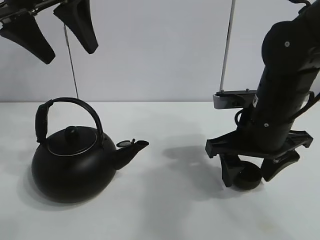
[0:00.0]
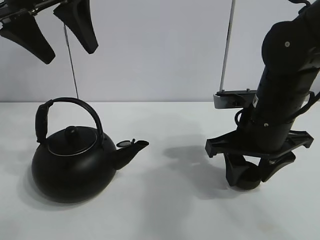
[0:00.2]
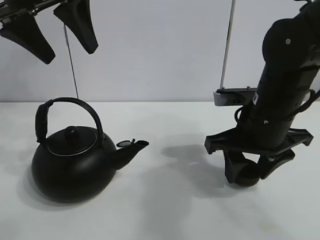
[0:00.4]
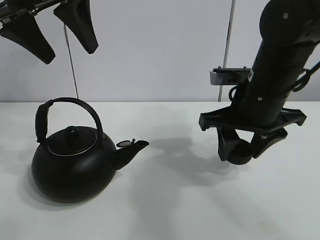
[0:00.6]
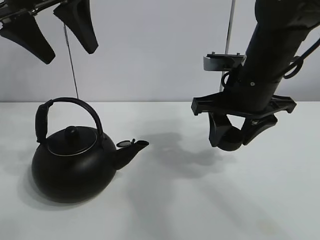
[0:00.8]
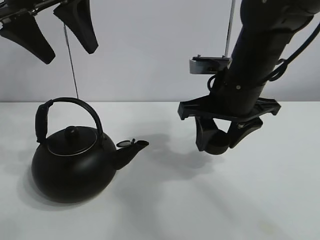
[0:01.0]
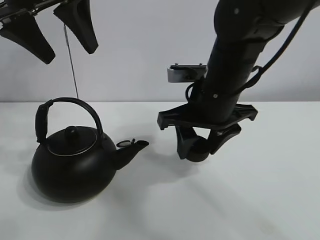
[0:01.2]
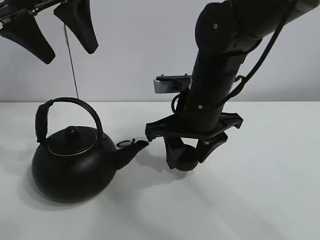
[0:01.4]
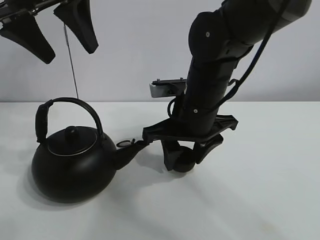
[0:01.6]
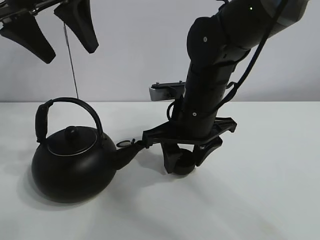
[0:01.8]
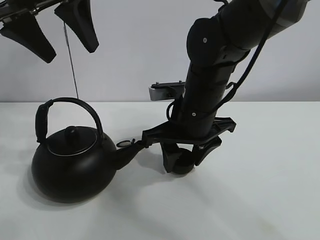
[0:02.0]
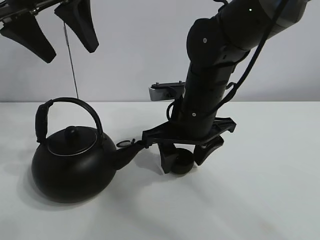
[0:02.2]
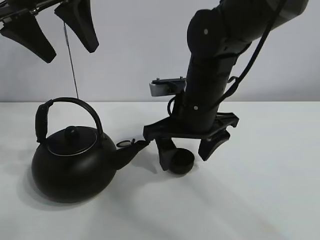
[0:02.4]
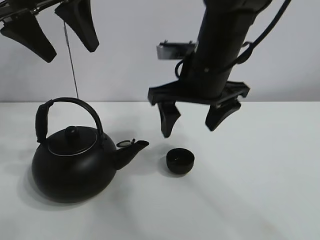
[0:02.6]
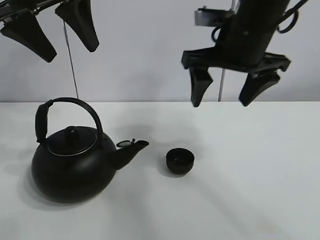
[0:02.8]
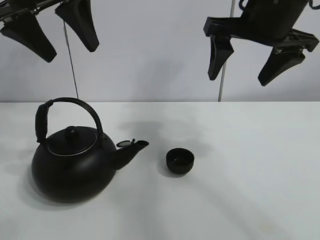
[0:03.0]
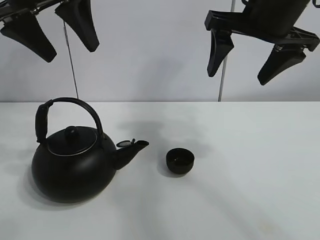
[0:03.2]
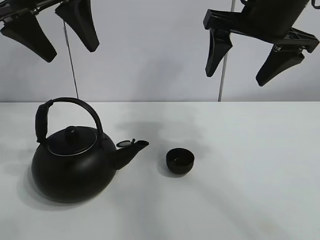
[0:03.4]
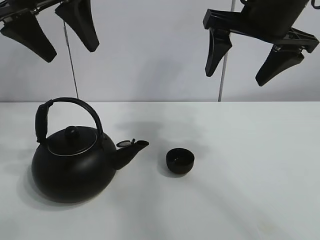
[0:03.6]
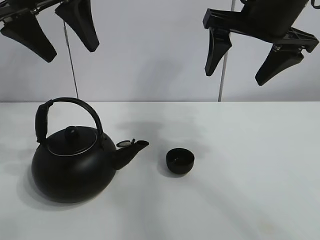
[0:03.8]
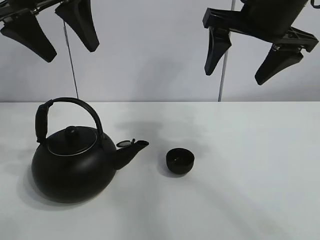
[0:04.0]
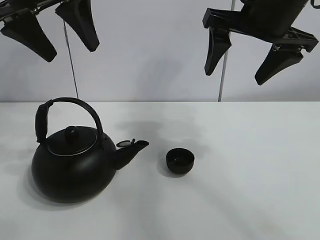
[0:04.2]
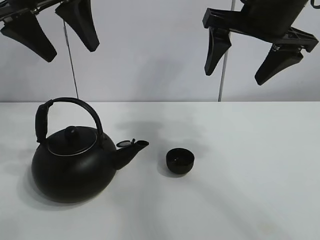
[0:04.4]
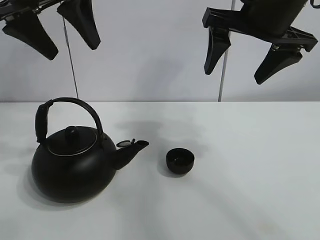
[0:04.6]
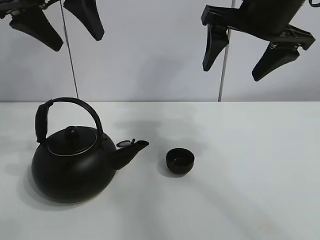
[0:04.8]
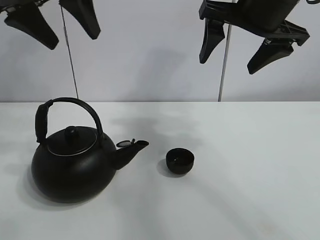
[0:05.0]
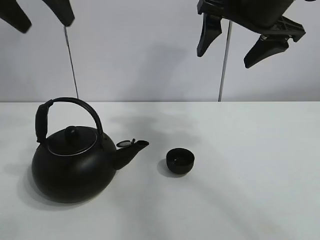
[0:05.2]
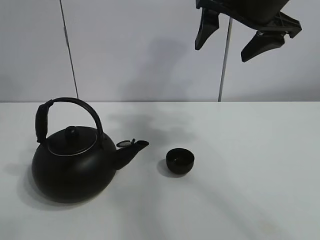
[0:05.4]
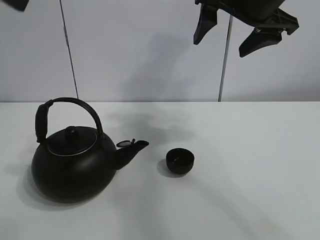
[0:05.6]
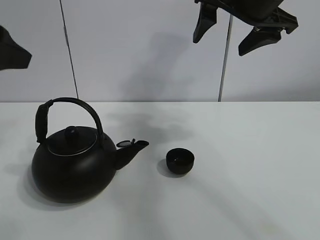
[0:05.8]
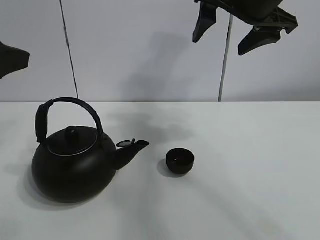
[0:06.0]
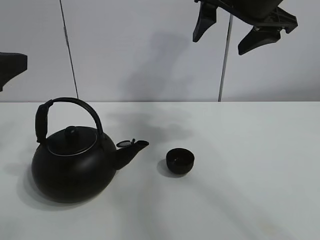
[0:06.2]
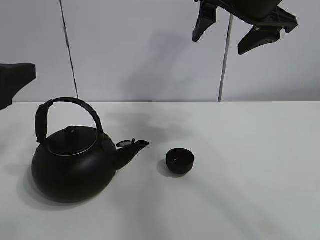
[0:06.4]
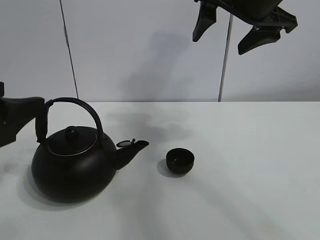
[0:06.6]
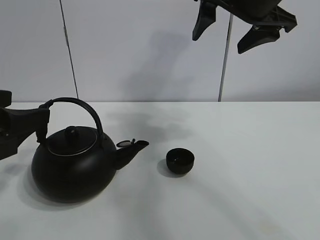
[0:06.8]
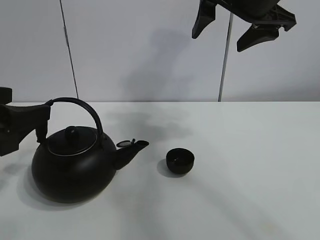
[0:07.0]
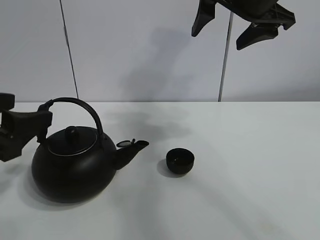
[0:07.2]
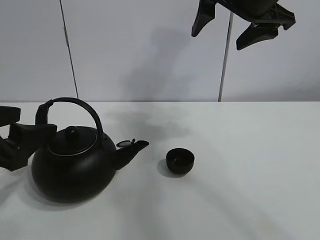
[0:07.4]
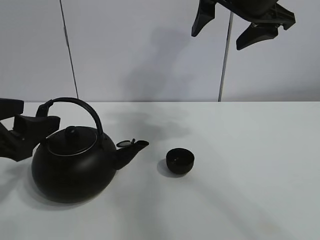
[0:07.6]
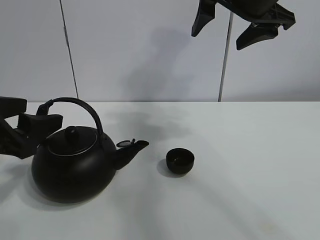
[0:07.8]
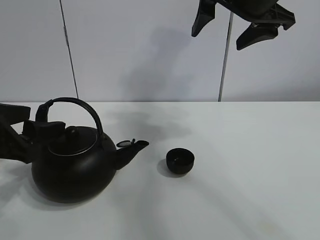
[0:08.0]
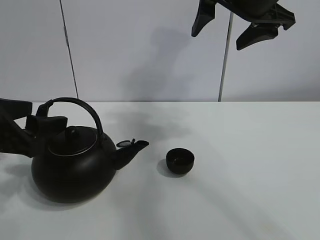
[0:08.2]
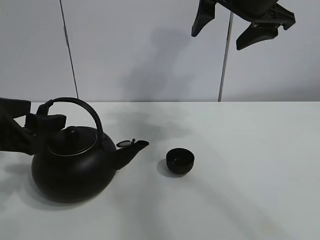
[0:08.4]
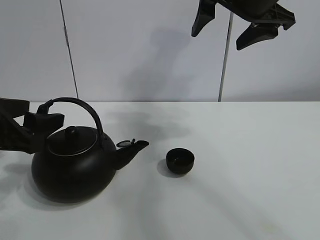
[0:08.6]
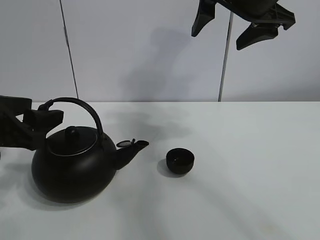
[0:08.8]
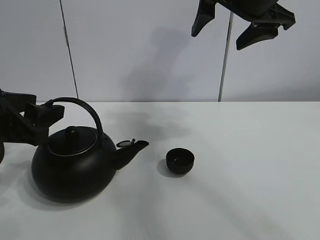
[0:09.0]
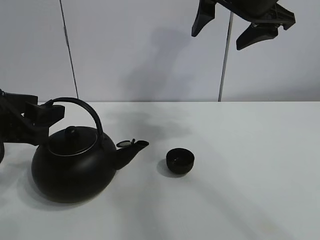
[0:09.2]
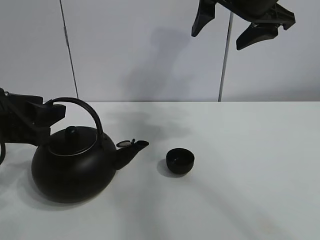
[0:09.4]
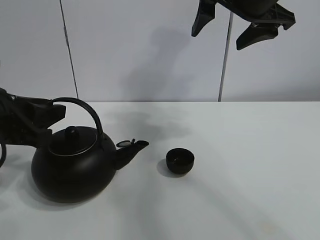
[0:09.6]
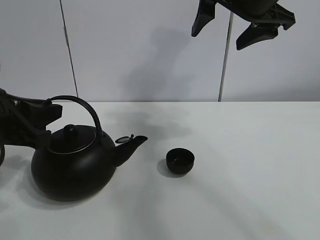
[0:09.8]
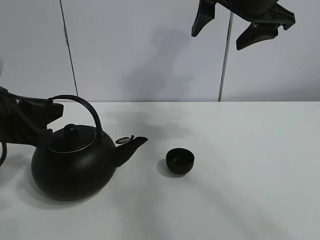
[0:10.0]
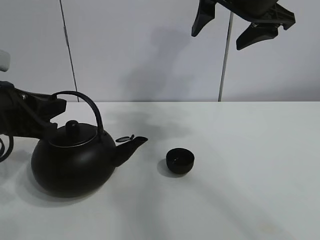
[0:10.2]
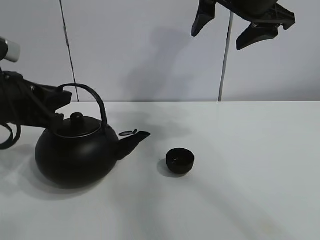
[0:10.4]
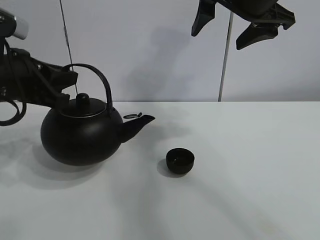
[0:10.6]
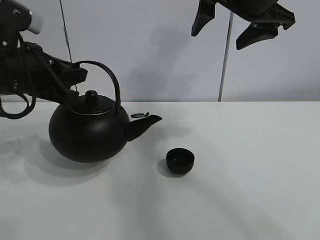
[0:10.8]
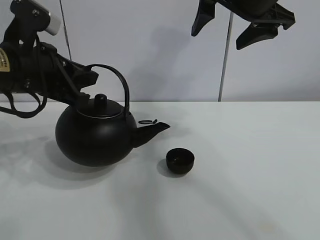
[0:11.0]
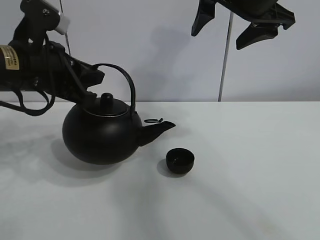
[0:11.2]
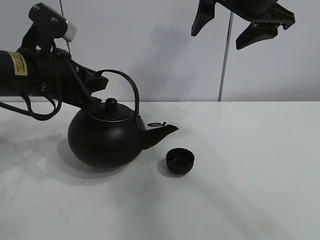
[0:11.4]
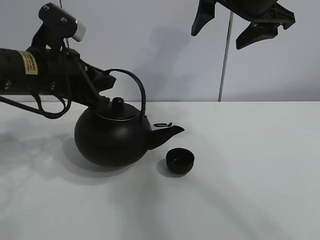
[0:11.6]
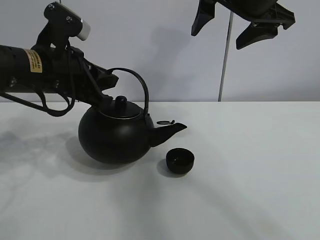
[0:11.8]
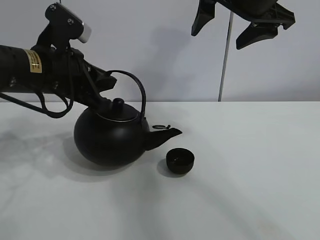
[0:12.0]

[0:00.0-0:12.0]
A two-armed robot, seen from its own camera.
Task of the whole recording: pour tea into the teacup.
Step, 0:00.4 to 0:02.2: Place the teacup in the center of view with the right gripper.
Step, 0:02.4 to 0:10.2: Pick up the teapot with the left gripper.
0:00.0 to 0:01.6: The right gripper shifts about 10 cm to the left, and closes up.
0:01.6 to 0:03.0: The right gripper moves upward and to the right, some 15 cm, and opens its fingers.
0:03.0 to 0:04.4: Both grippers stay about where they are.
0:04.4 to 0:06.0: The left gripper travels backward, to the left and downward by roughly 15 cm.
0:06.0 to 0:07.6: The left gripper heads downward, covering approximately 10 cm.
0:07.6 to 0:09.0: The grippers move only a little.
0:09.0 to 0:10.4: The left gripper closes.
0:10.4 to 0:12.0: The left gripper heads to the right and forward, covering about 10 cm.

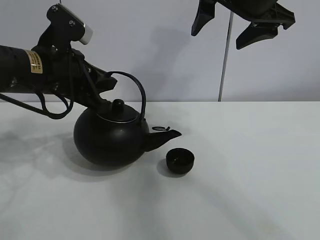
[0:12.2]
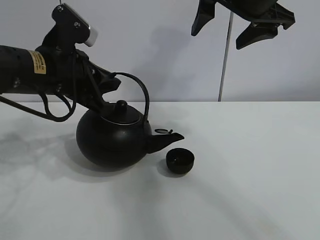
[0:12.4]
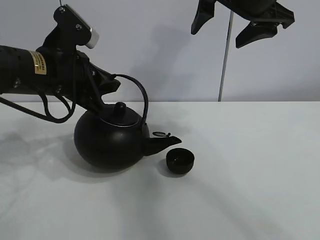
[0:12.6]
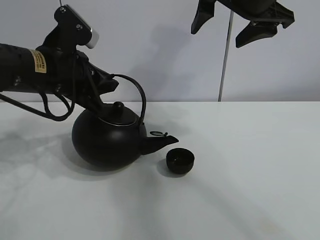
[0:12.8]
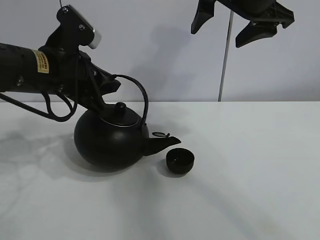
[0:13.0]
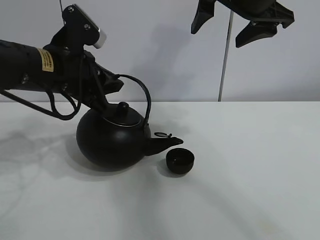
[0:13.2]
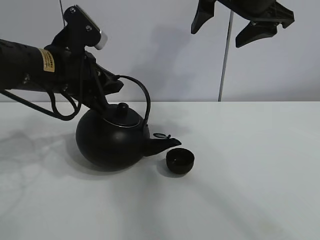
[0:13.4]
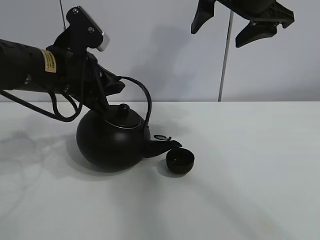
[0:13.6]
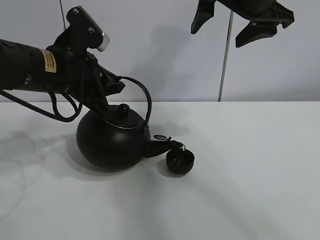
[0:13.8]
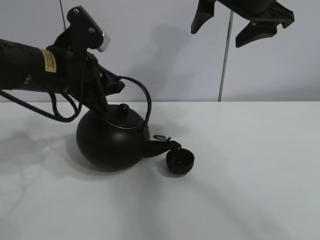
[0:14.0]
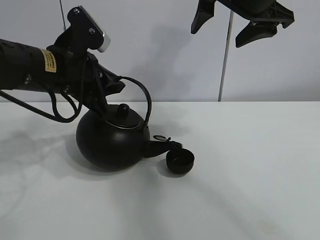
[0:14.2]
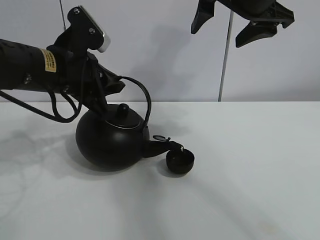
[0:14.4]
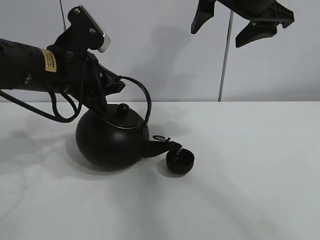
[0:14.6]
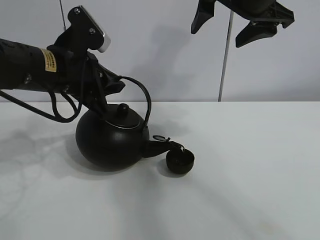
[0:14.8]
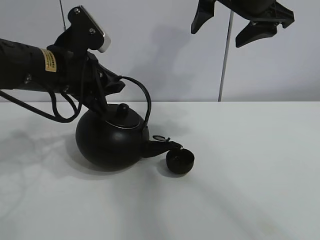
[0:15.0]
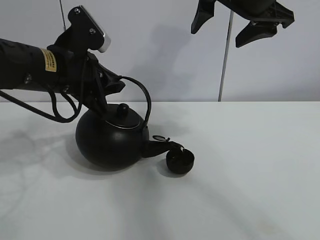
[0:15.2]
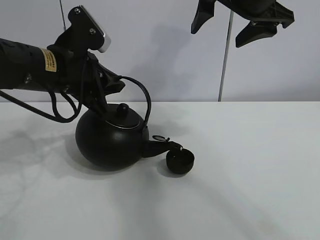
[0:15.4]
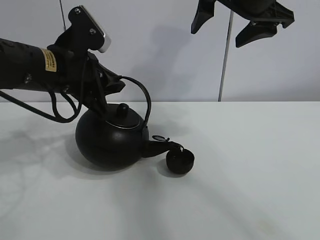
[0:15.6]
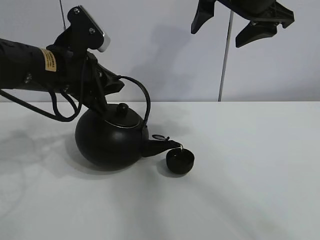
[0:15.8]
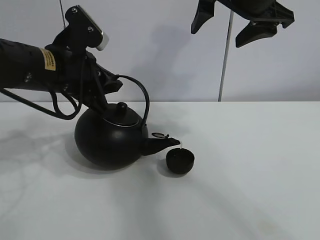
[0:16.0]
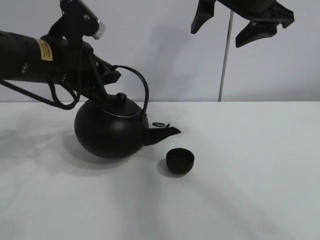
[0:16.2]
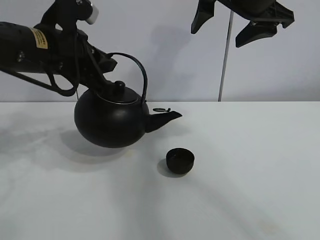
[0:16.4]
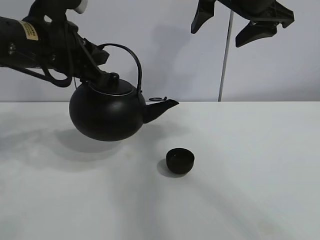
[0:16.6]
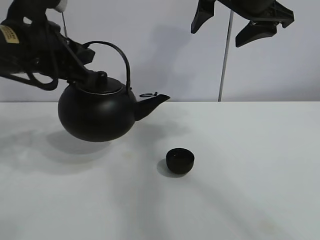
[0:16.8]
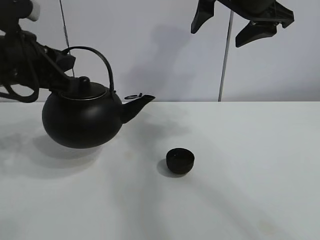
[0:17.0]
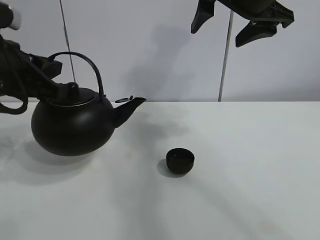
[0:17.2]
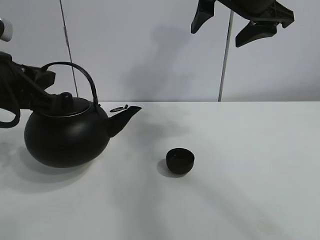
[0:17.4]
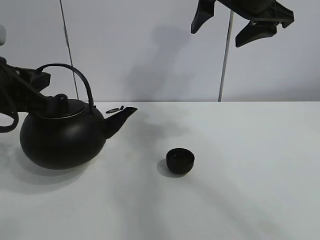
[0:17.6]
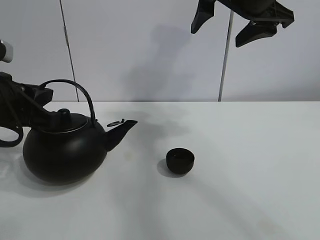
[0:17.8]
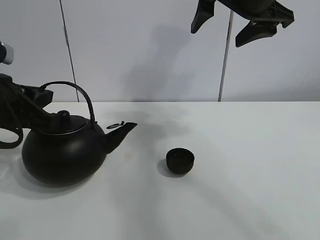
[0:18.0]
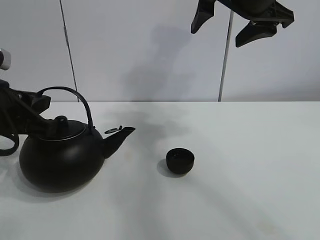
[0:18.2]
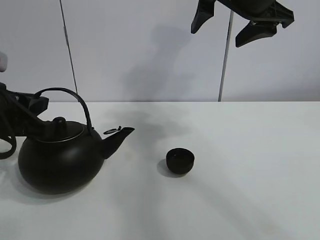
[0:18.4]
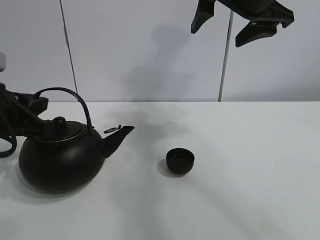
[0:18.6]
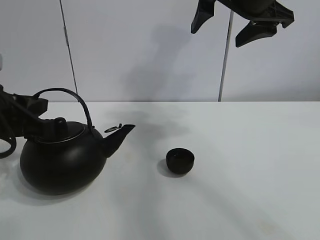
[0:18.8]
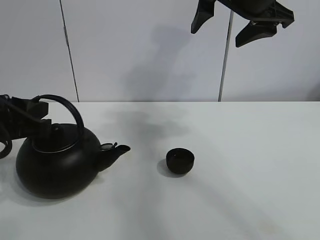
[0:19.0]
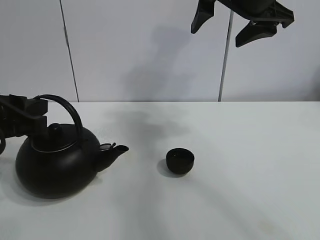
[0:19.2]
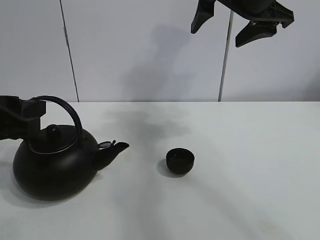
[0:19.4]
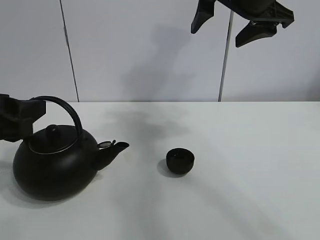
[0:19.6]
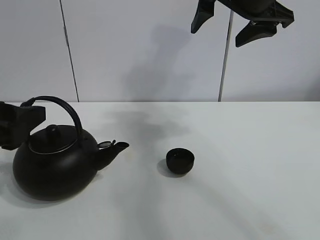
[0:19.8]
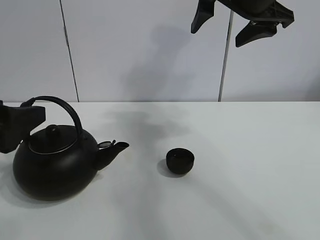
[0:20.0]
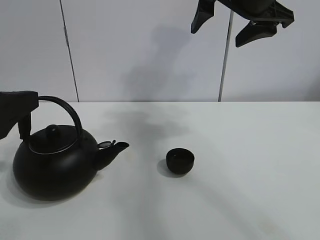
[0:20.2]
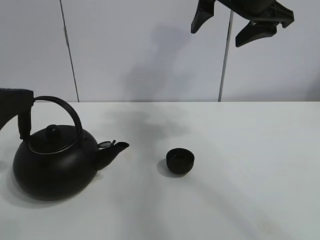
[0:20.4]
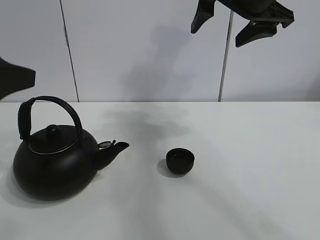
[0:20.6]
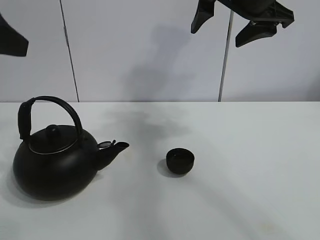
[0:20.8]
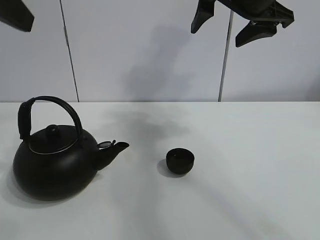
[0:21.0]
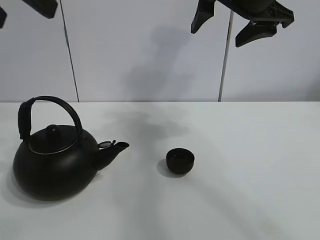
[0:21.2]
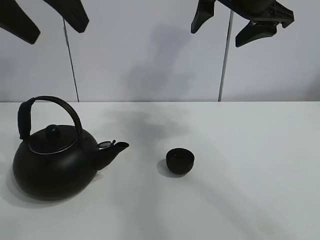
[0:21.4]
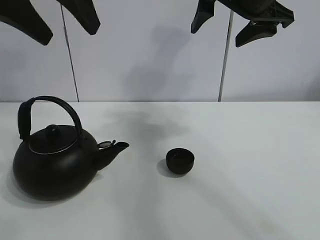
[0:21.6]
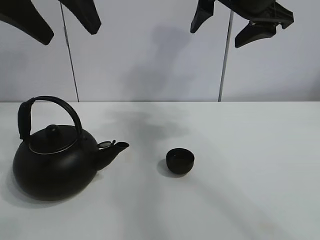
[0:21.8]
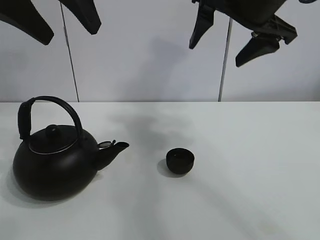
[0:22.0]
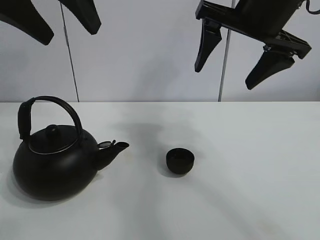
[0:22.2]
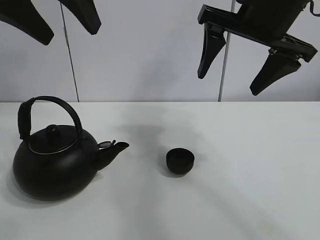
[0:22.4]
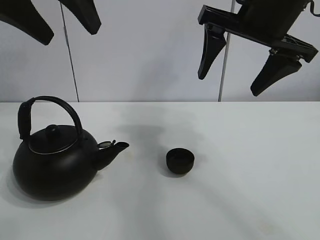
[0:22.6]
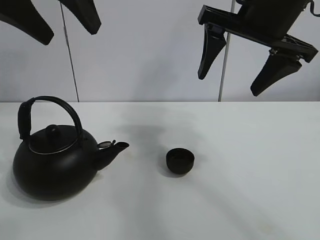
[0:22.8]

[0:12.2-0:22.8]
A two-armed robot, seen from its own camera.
Task of the whole recording: pour tea into the teacup.
Step, 0:12.2 to 0:16.0: Pour tea into the teacup with the left gripper.
0:12.2 to 0:13.8: The grippers move only a little.
0:13.8 to 0:15.2: Neither gripper changes place.
0:15.2 to 0:16.8: The left gripper moves approximately 5 cm.
0:16.8 to 0:18.2: The left gripper is displaced downward, backward and to the left by some 10 cm.
0:18.2 to 0:19.8: The left gripper shifts roughly 5 cm backward, and opens its fingers.
0:19.8 to 0:21.2: The left gripper shifts approximately 20 cm upward.
0:21.2 to 0:22.8: The left gripper is displaced forward by about 5 cm.
